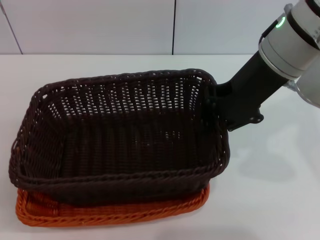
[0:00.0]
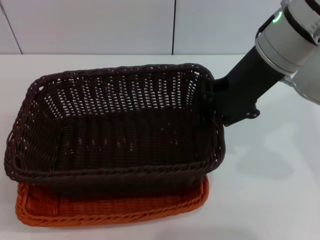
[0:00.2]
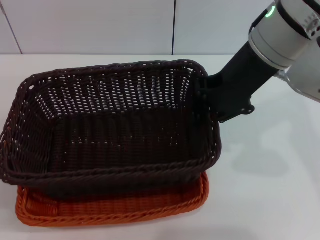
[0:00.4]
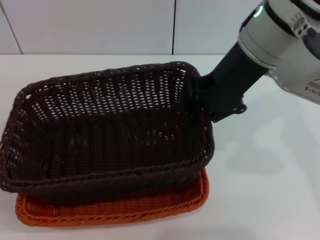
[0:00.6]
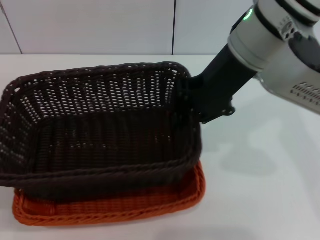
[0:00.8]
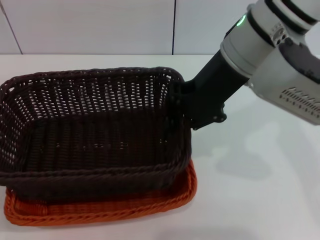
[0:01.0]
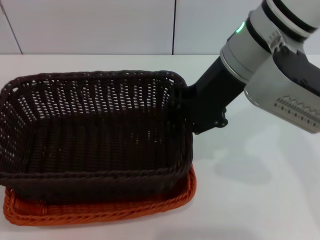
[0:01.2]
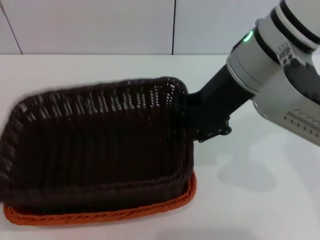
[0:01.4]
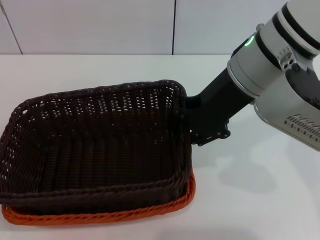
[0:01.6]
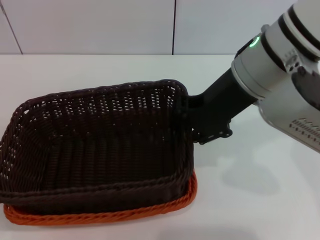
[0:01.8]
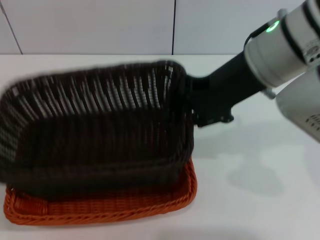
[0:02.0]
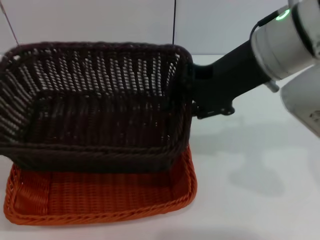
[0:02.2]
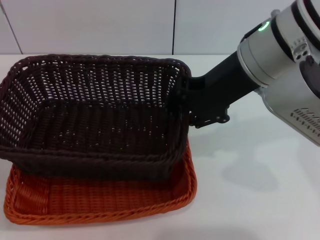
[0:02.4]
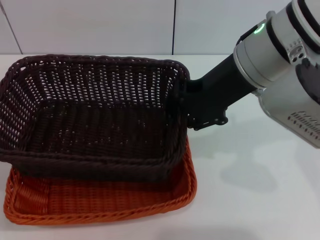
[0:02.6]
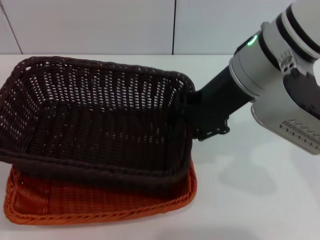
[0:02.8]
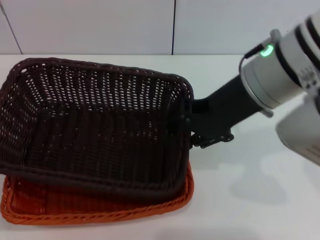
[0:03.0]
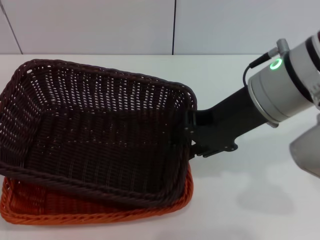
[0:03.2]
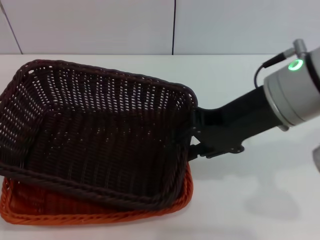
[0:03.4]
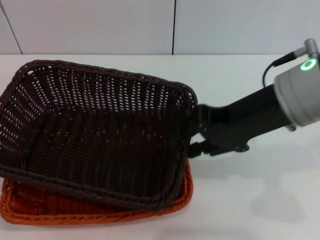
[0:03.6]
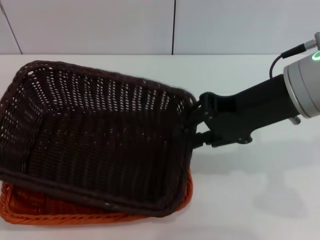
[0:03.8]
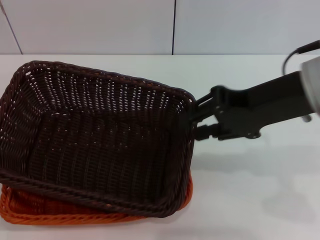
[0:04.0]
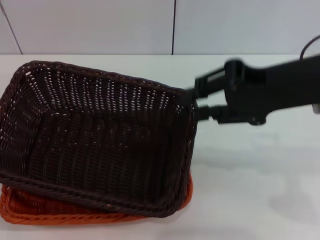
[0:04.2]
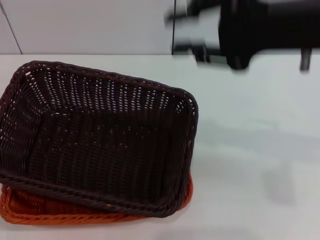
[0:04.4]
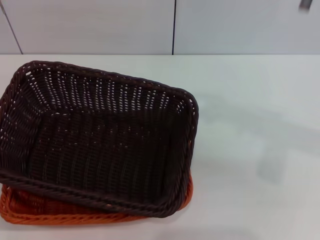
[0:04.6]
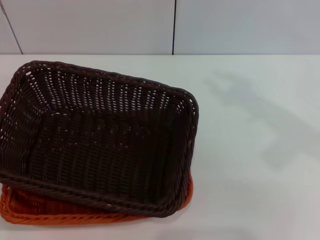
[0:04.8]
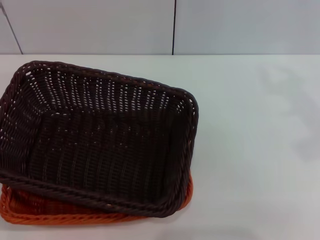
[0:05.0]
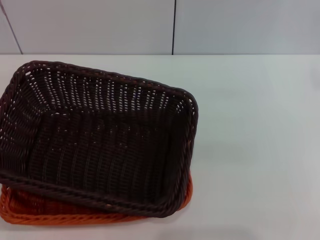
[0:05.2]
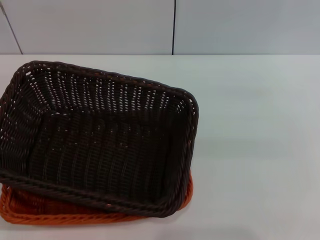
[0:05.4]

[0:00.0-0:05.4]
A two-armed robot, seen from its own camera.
Step, 0.0 to 4.0 s: Place the dark basket on the light basket with the right gripper.
1.4 to 2.8 s: The grippers move only a little.
2.8 to 4.0 s: The right gripper shifts some 10 cm to the right and backward.
4.0 to 5.4 s: The left gripper shifts by some 5 cm. Meanwhile the right gripper goes approximately 20 cm to the right.

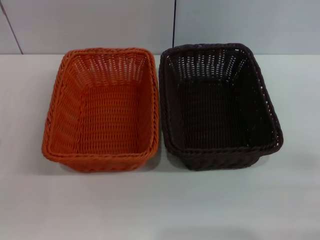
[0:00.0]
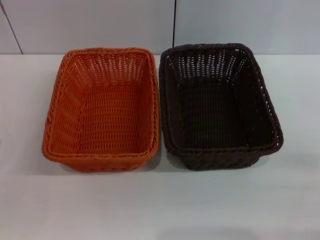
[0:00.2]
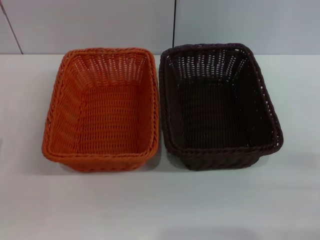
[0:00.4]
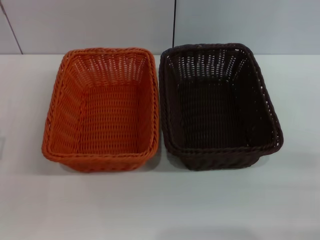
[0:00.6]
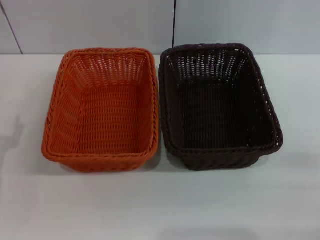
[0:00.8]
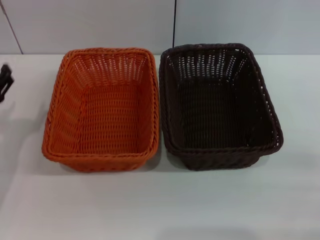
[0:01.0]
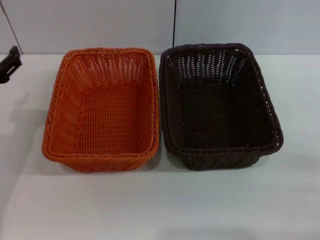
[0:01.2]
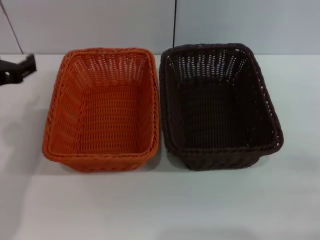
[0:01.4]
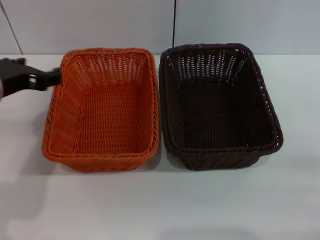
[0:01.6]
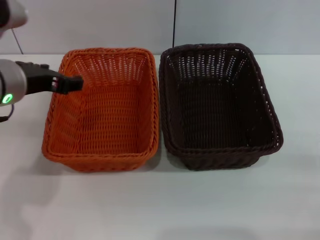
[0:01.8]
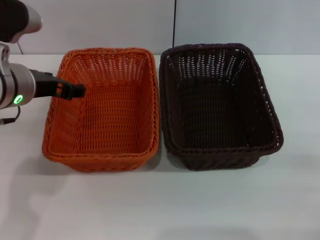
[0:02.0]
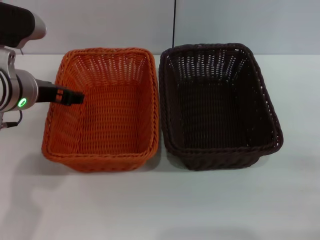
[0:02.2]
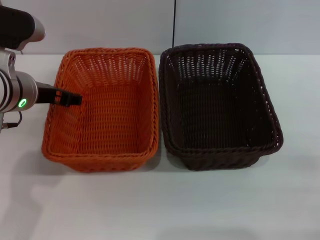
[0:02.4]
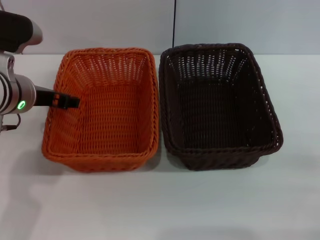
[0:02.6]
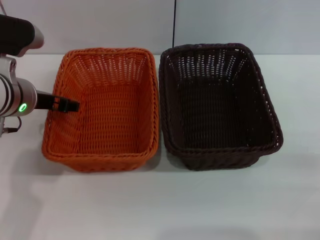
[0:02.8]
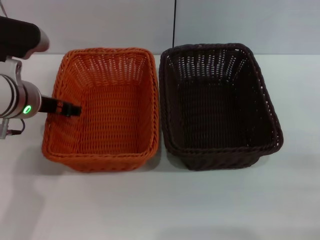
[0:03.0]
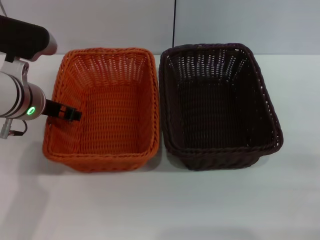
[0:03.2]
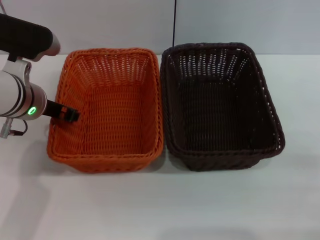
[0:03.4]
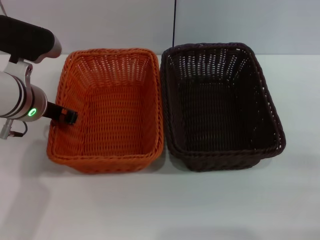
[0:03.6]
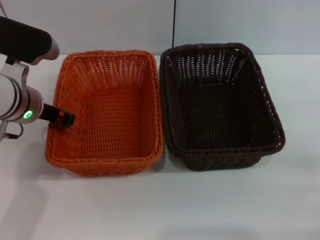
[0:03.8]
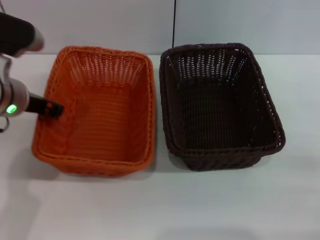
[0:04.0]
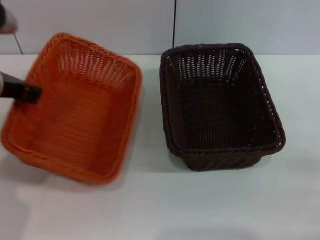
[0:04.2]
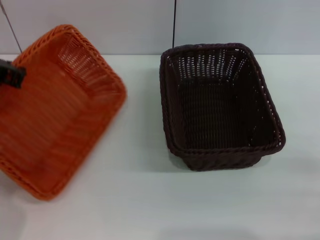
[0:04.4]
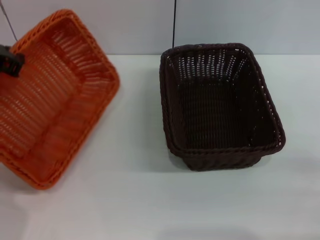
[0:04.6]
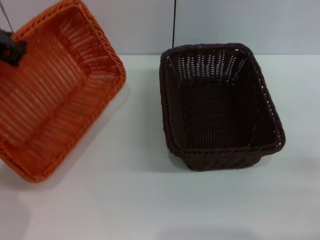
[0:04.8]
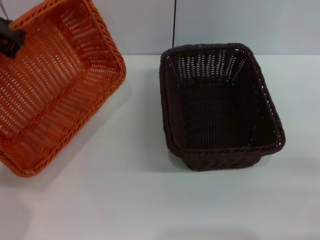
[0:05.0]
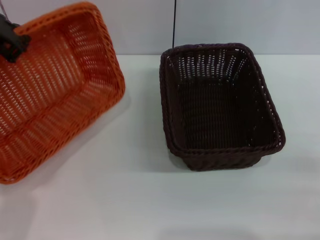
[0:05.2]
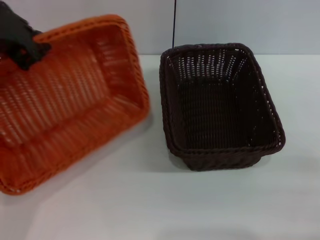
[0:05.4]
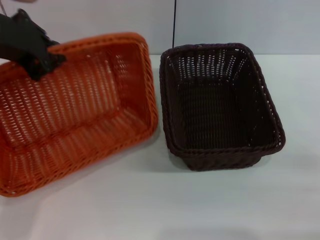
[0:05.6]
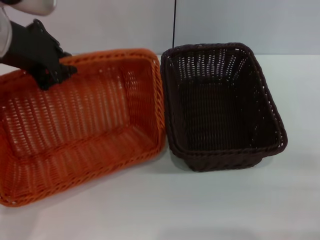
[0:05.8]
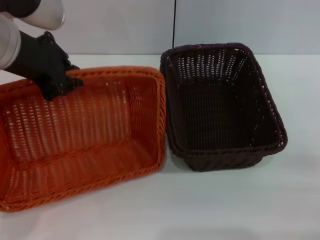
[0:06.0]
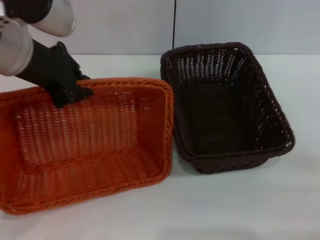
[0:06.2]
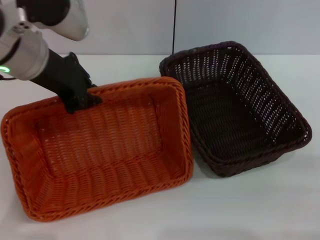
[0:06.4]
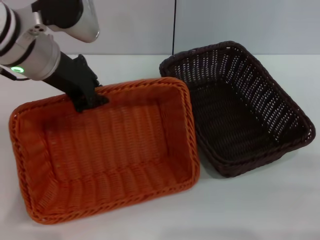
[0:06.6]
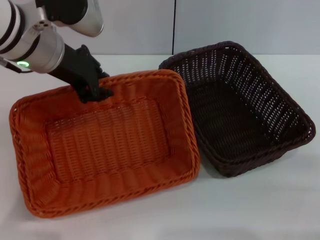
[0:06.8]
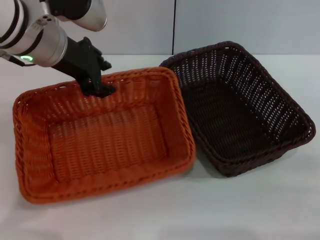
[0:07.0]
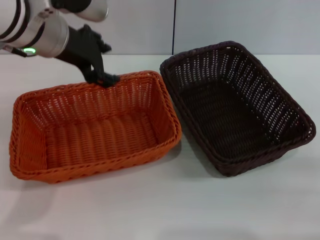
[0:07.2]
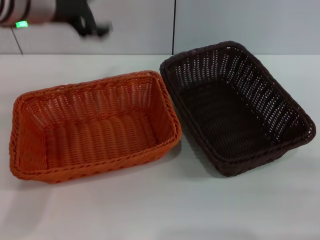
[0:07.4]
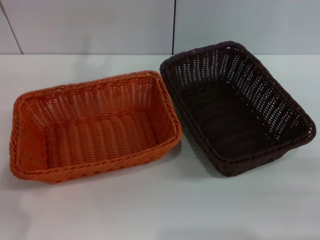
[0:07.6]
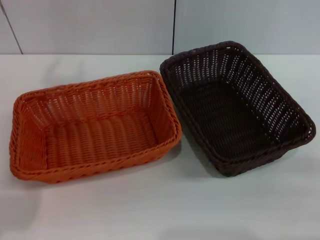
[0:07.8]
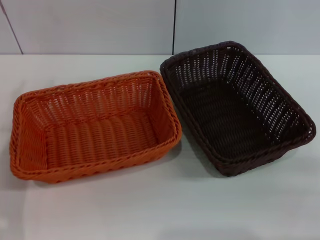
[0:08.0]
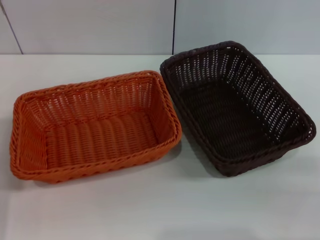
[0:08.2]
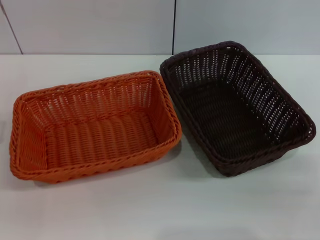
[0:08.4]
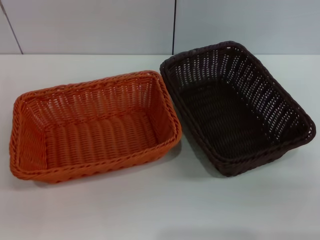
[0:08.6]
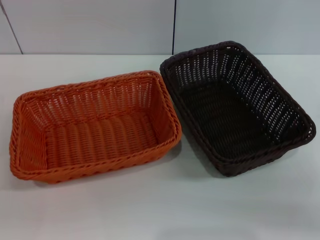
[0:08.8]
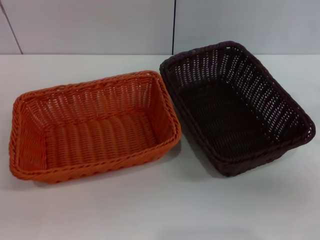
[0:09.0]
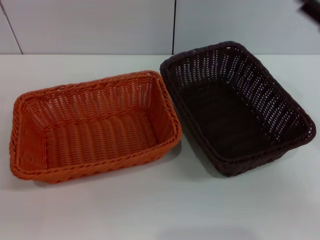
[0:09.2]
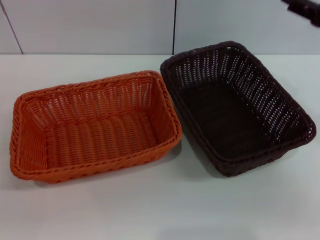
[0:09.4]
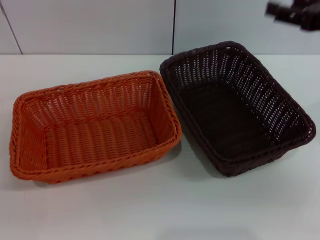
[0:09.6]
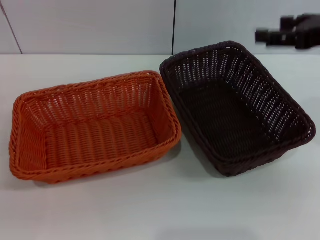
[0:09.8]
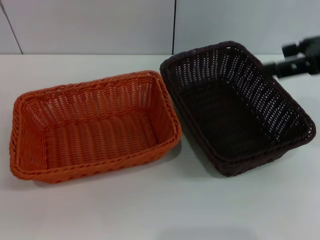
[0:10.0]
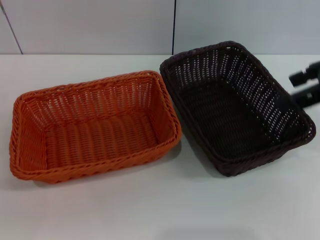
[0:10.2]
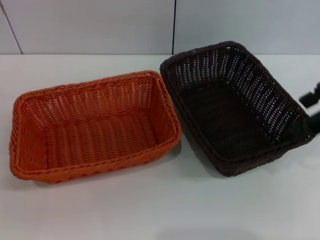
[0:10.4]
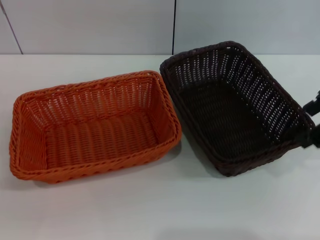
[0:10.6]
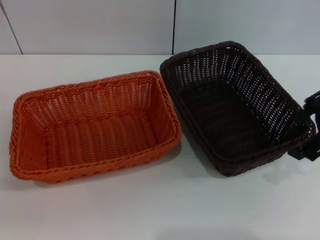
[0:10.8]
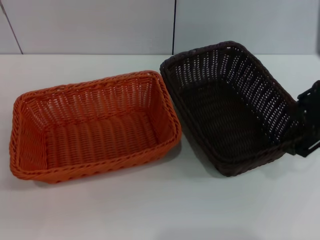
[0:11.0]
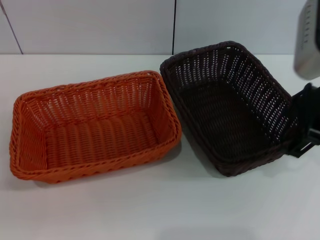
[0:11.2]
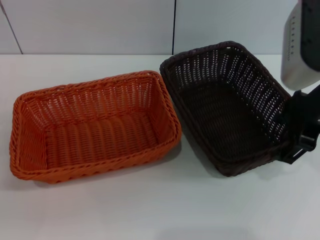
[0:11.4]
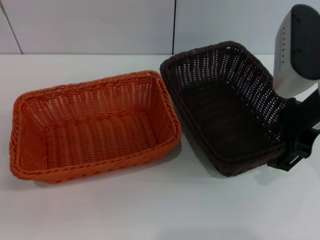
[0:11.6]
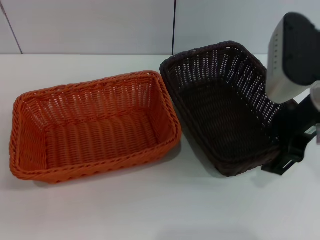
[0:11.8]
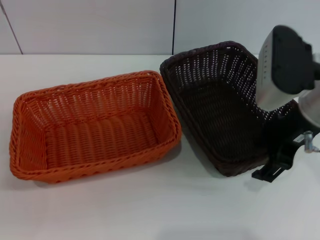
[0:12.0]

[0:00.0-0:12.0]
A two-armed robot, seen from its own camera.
Step, 0.0 to 4.0 s: Pick up the light basket with the left gripper.
Step, 4.4 to 7.0 s: Place the light basket in the center of view with the left gripper.
0.0 to 1.6 s: The left gripper heads upward, to the right and forward, covering some 25 cm.
1.6 to 3.0 s: The left gripper goes about 10 cm forward and downward.
3.0 to 4.4 s: The left gripper shifts some 10 cm upward, and closes up.
4.4 to 6.0 s: The left gripper travels to the right and upward by roughly 10 cm.
6.0 to 7.6 s: The left gripper opens up.
7.6 to 9.0 s: The right gripper shifts some 10 cm forward and upward.
9.0 to 10.4 s: The right gripper goes about 15 cm upward.
10.4 to 12.0 s: The right gripper goes approximately 10 cm downward and to the left.

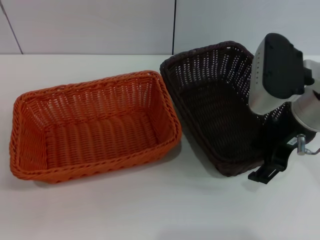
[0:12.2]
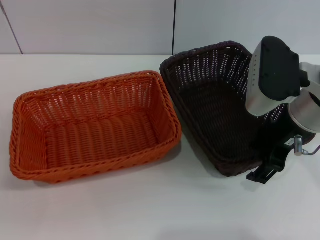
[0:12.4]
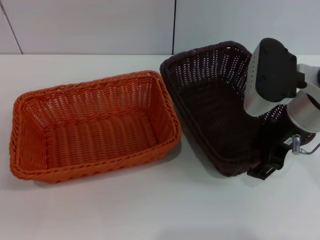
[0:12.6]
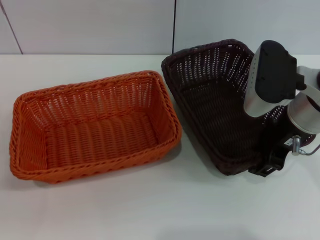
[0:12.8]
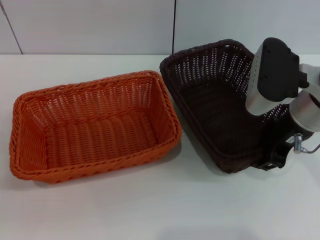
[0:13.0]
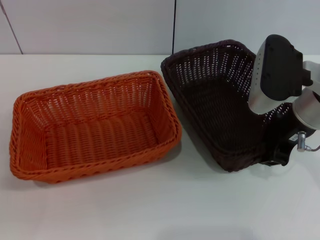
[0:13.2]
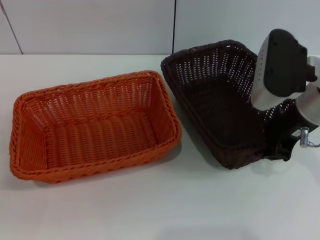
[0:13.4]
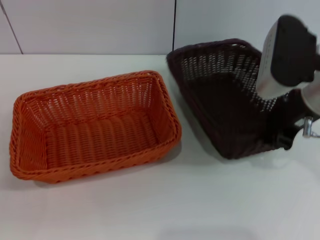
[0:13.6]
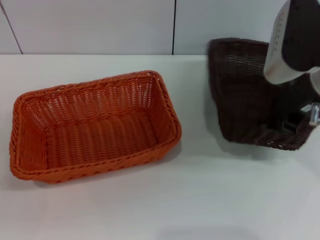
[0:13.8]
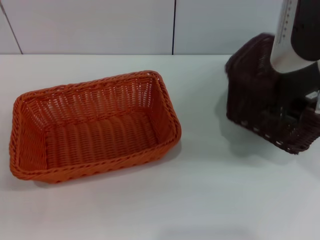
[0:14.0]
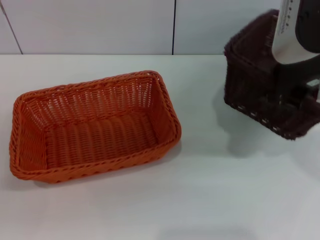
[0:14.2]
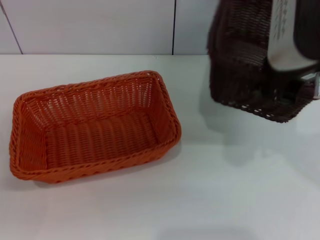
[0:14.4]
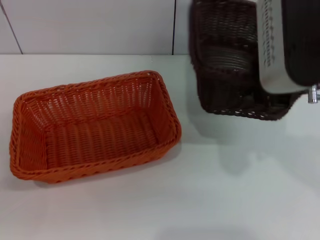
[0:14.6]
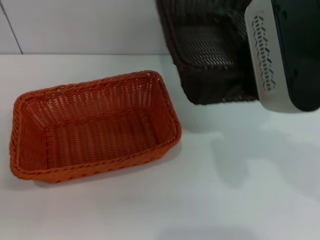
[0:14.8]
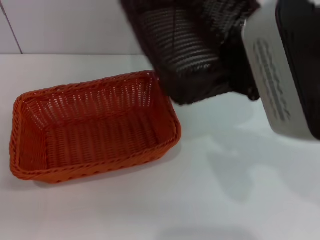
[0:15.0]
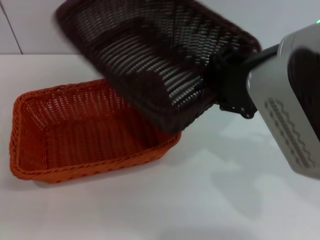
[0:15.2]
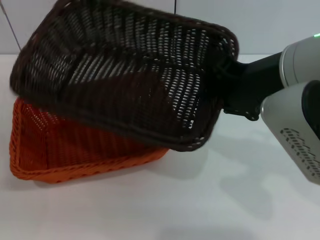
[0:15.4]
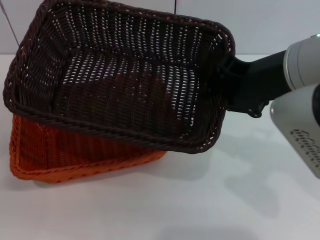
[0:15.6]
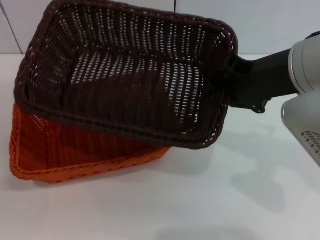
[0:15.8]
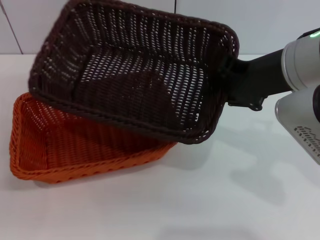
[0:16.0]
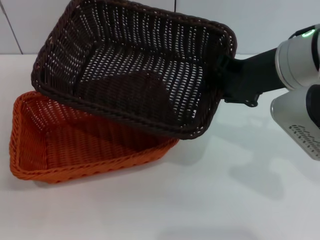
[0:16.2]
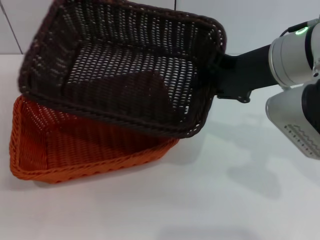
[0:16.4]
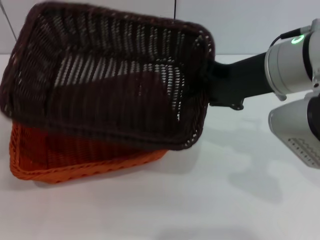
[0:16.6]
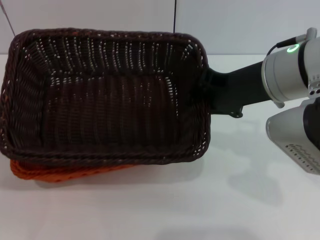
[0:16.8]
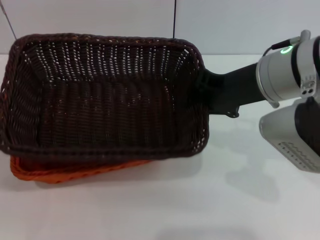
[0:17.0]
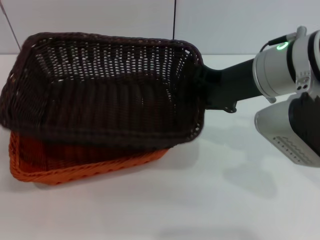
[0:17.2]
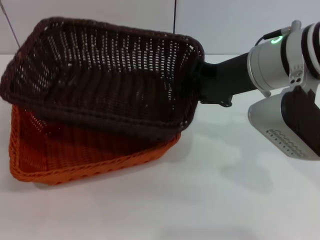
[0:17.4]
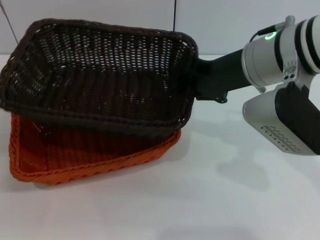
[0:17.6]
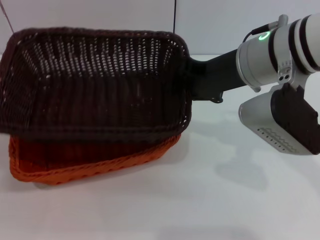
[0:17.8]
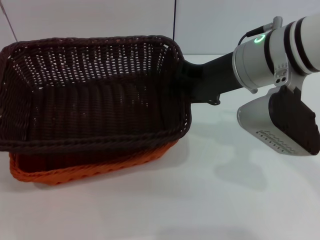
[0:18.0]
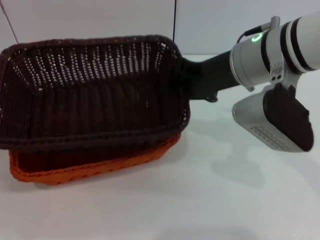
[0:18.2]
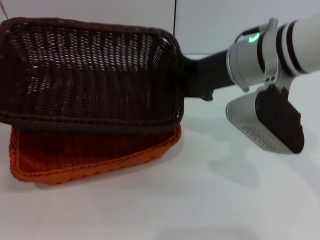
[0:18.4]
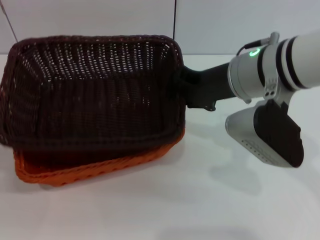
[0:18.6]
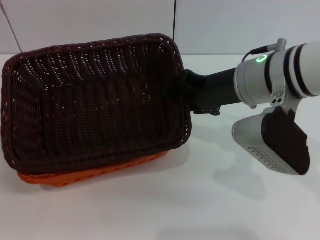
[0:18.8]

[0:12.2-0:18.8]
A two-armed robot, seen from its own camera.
Step, 13.8 to 18.8 s: Place the dark basket on the light basket with the right gripper.
12.2 to 13.8 s: The right gripper closes up.
13.8 to 15.4 s: The right gripper ends up roughly 10 cm from where it was.
15.4 to 17.2 s: The right gripper travels forward and downward by some 5 cm.
